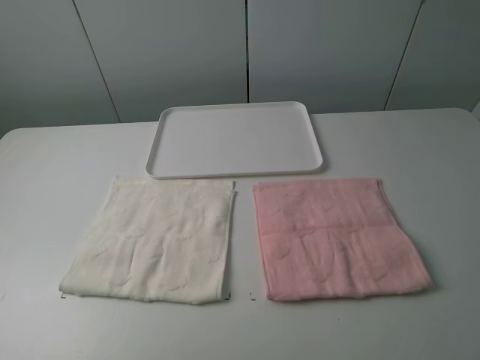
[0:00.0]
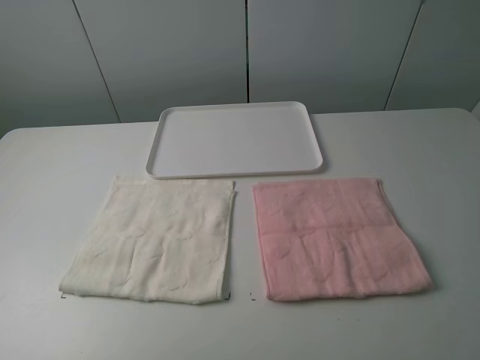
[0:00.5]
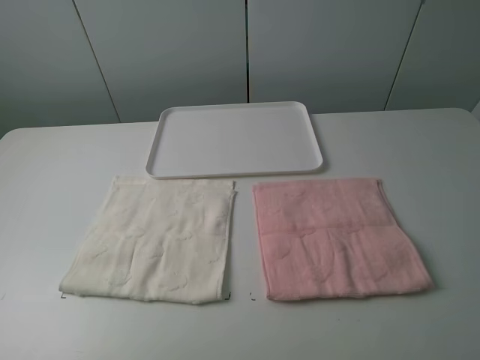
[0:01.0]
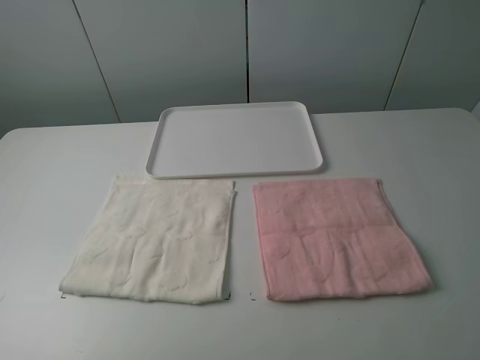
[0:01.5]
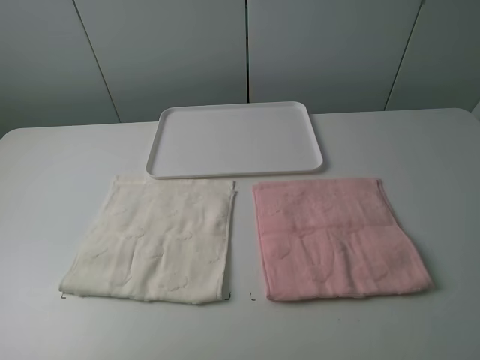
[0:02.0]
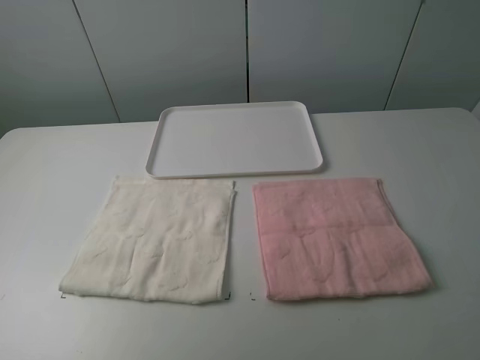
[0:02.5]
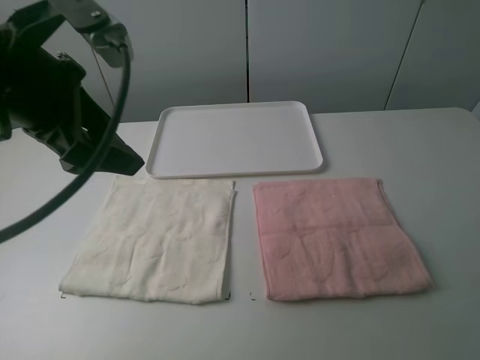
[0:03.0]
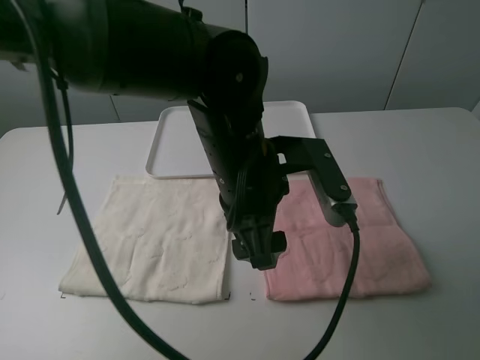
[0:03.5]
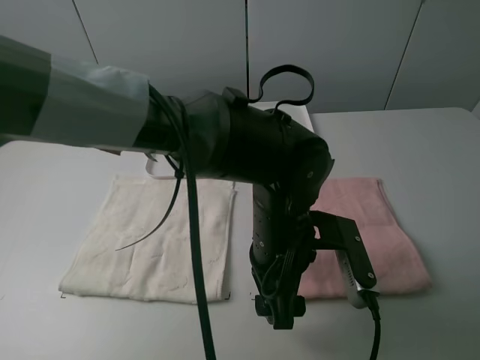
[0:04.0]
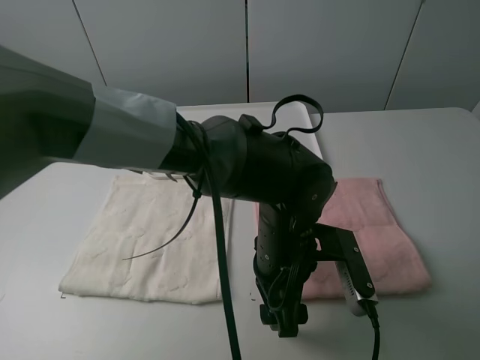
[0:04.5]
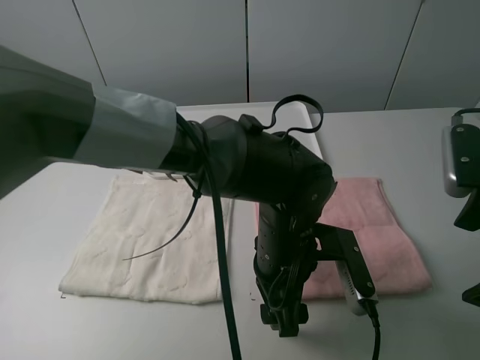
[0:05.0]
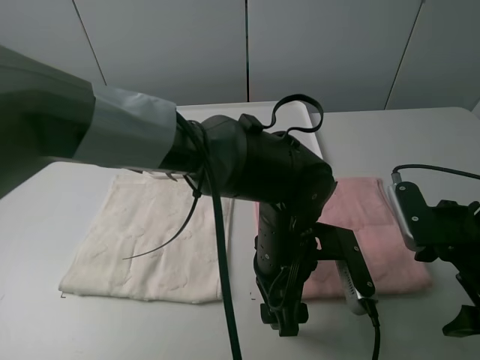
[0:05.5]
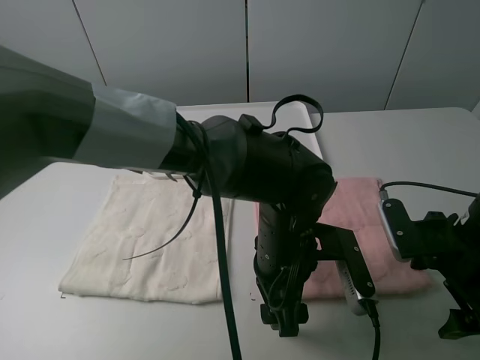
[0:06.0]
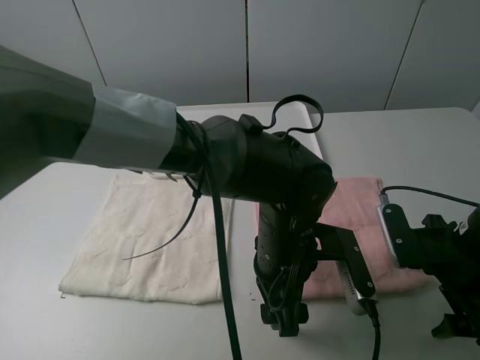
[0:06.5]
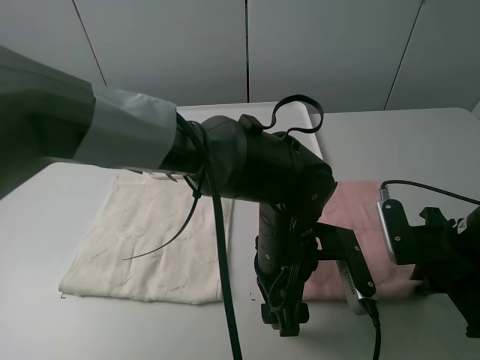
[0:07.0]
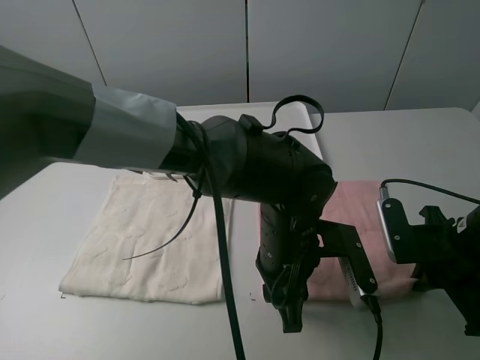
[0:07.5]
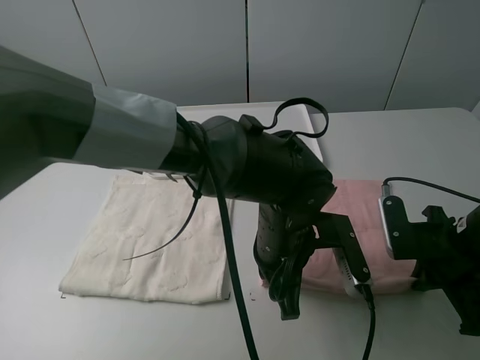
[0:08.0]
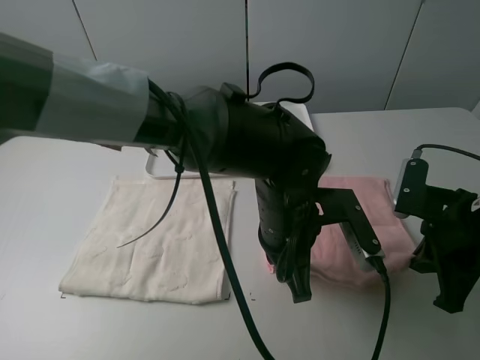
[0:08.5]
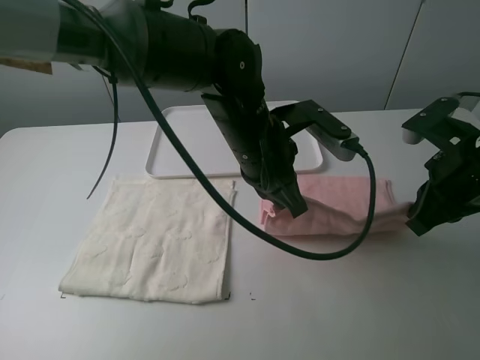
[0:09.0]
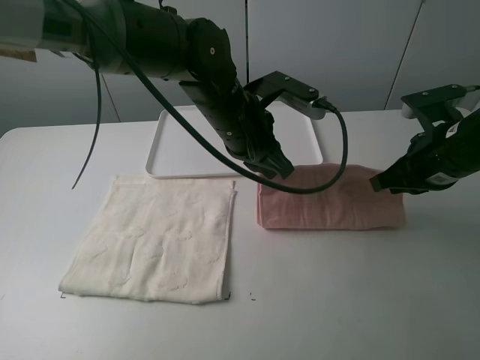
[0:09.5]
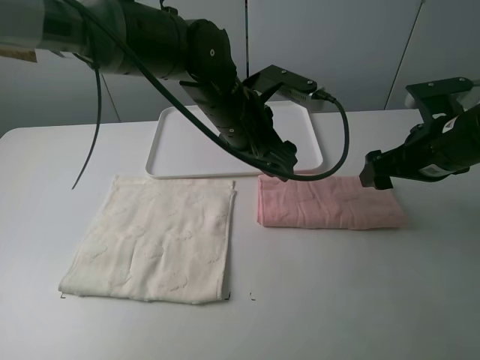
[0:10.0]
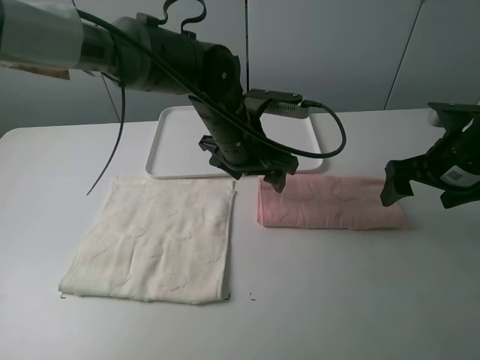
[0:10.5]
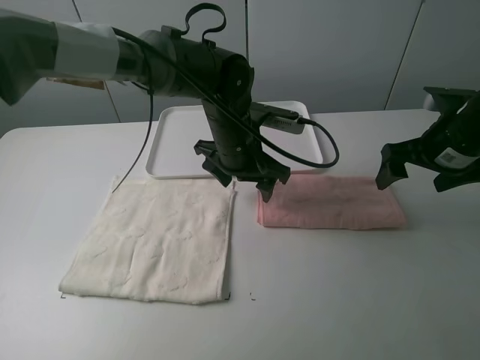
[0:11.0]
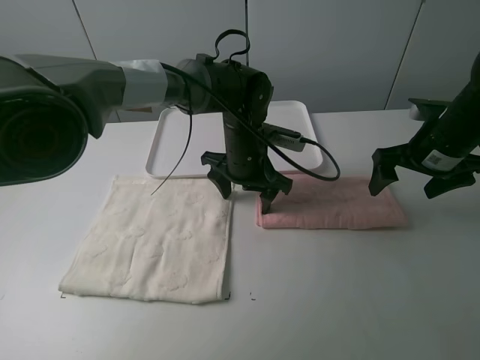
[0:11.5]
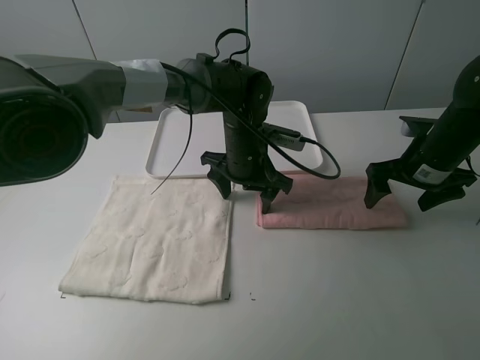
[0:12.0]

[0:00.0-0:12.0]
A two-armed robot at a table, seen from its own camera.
Task of the whole recording: fold one of the towels by two grippers and place it on the tray,then fold another towel by two grippers and place it on the folded towel.
Step, 0:00.0 to 0:07.5: Grasp the pink towel with the left gripper.
Step, 0:08.0 to 0:10.0: Fold the pink towel upwards with the left gripper.
Step, 0:10.5 to 0:11.5: Press the pink towel with the left gripper.
0:00.0 to 0:02.0: The two grippers keep their place.
0:02.0 to 0:04.0: The left gripper travels to the right, forward and downward by roughly 40 cm, while the right gripper goes about 10 cm forward.
0:04.0 to 0:06.0: The right gripper shifts roughly 20 cm downward and forward.
0:06.0 to 0:08.0: The left gripper closes up. Meanwhile the right gripper closes up.
0:08.0 to 0:10.0: The right gripper shifts some 10 cm forward and upward, and opens its fingers, while the left gripper shifts about 15 cm forward, upward and to the left, and opens its fingers.
0:10.0 to 0:12.0: The left gripper shifts about 10 cm downward, while the right gripper goes about 5 cm forward.

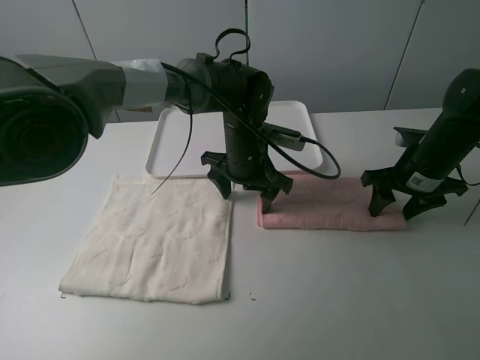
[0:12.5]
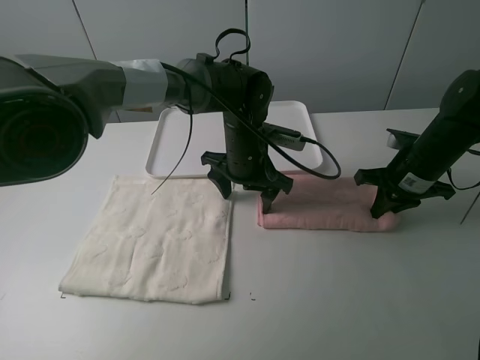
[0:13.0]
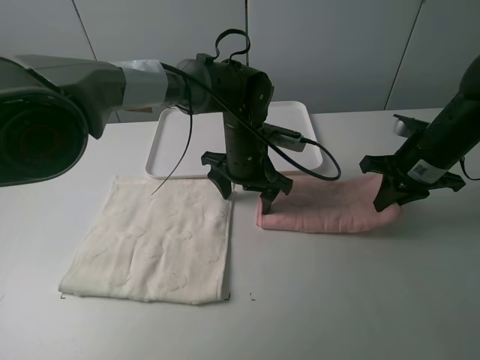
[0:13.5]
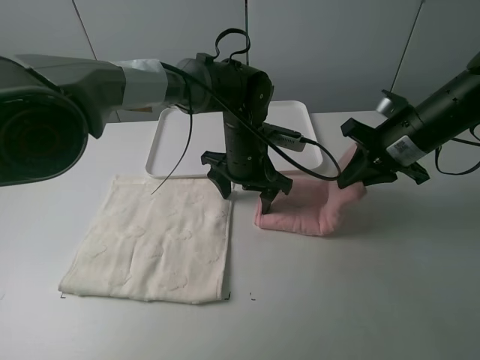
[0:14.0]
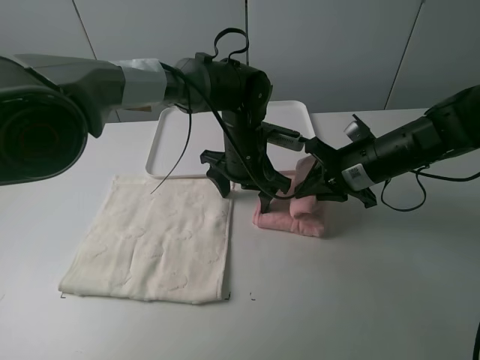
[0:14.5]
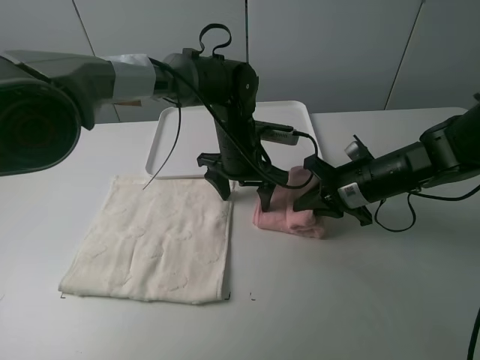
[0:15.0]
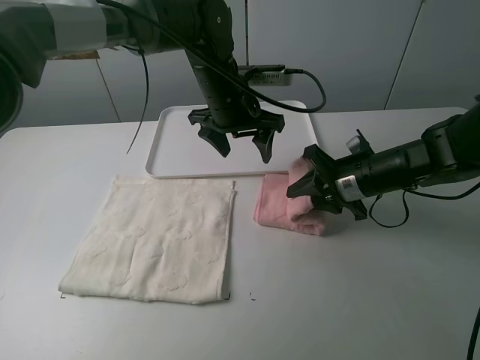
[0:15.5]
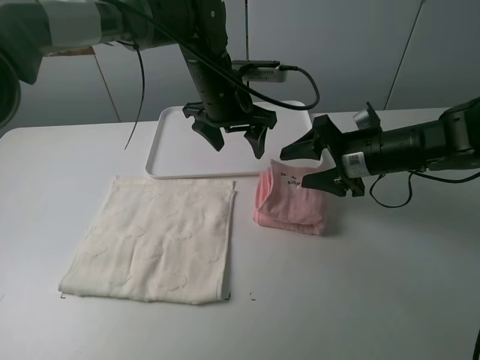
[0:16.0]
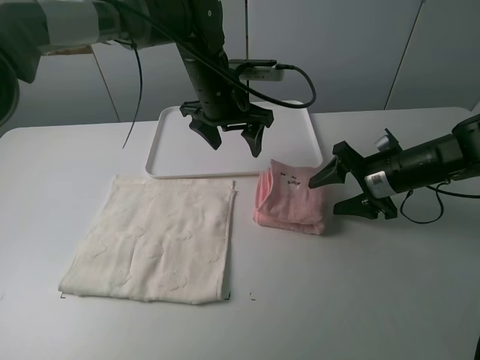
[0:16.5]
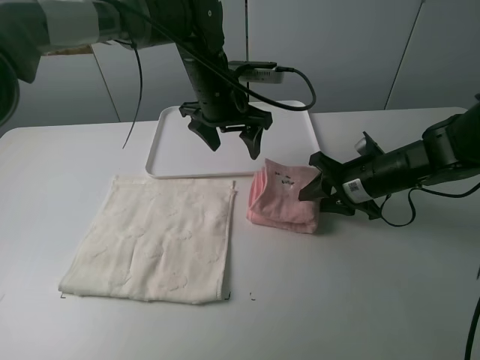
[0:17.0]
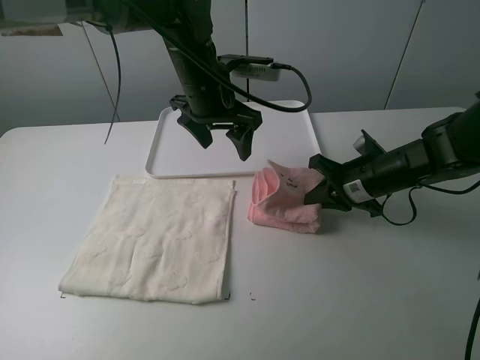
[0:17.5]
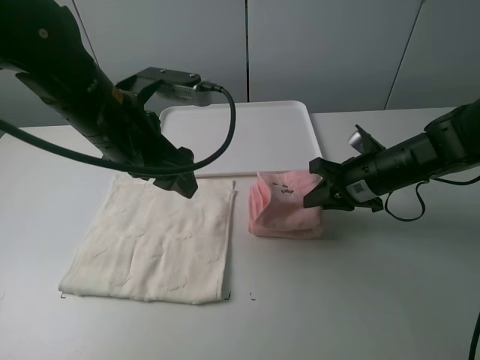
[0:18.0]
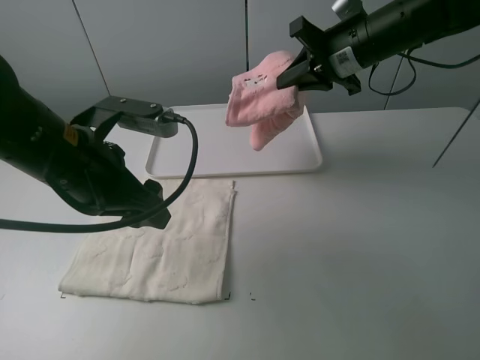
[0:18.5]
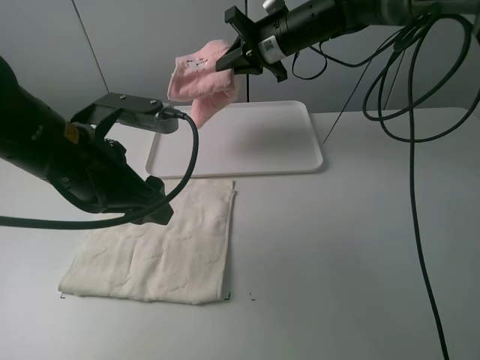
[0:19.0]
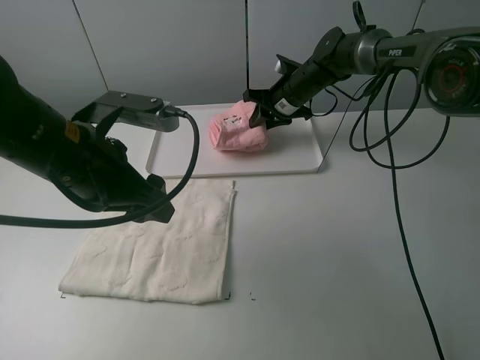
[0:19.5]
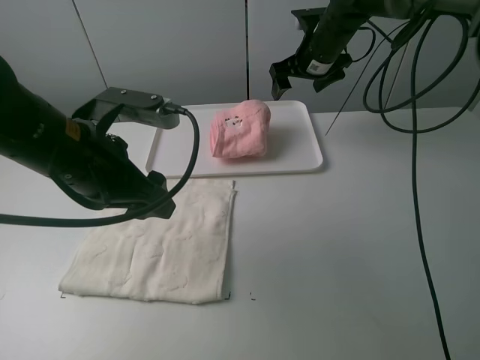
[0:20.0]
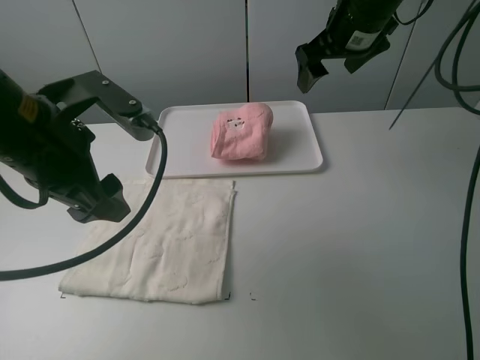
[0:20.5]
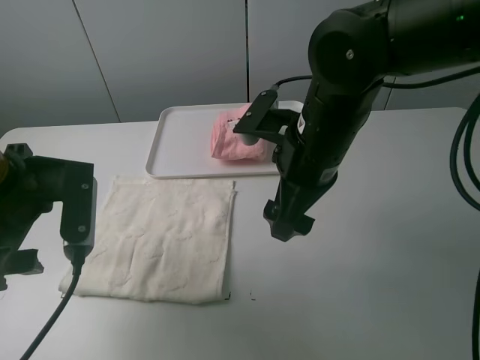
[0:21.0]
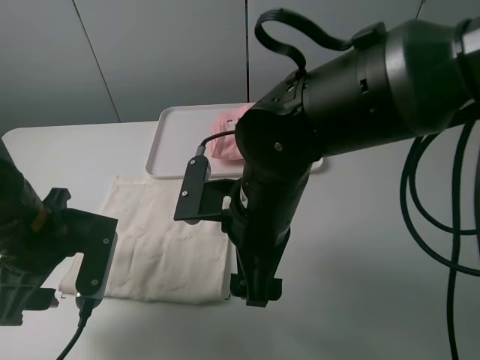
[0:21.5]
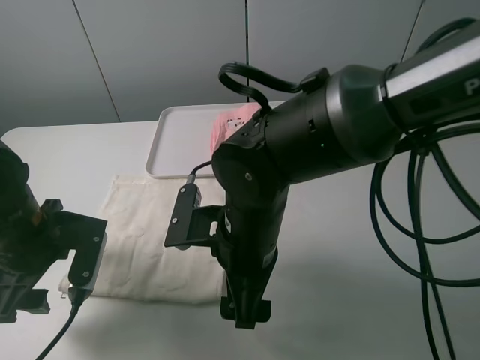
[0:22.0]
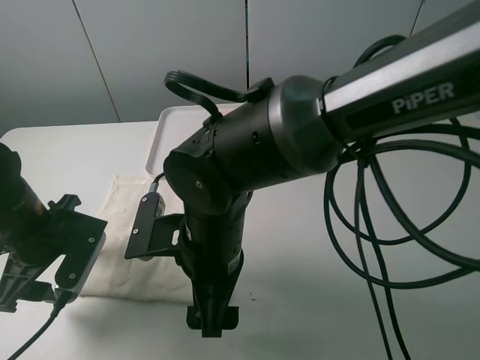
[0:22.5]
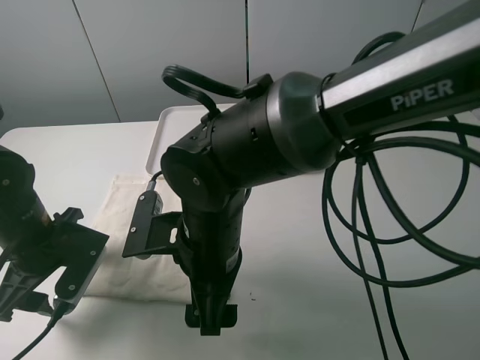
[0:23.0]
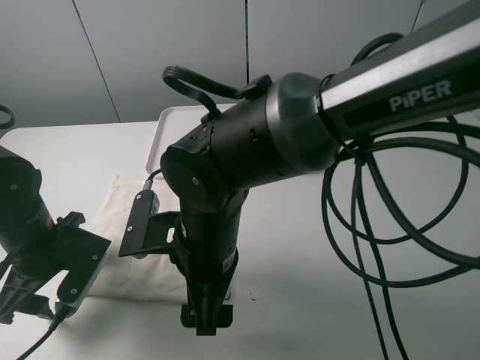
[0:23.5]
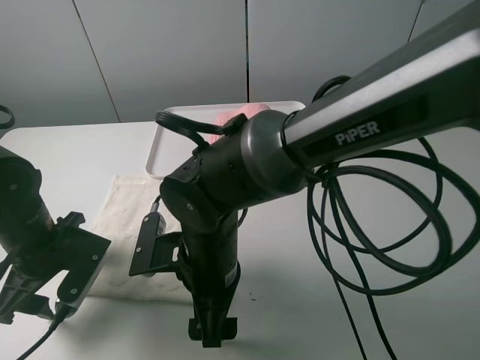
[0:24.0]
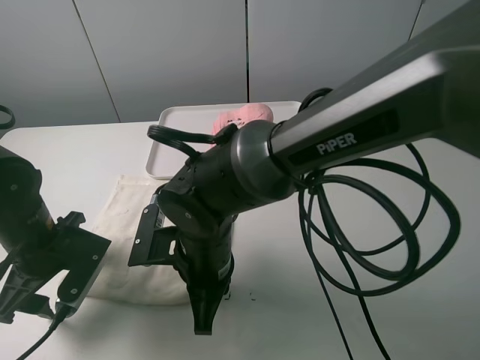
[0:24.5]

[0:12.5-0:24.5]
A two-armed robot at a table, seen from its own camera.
Task of the whole recording: fold one of the towels by two grippers and place it on the tray,then fold another towel by two grippers and place it on the folded towel.
Step, 0:13.5 to 0:15.5: Fold the pink towel from right to left with right gripper.
Step, 0:16.0 to 0:17.0: Grasp the pink towel with the right gripper.
Step, 0:17.5 to 0:20.0: Move the pink towel to the plate with the right gripper.
0:12.5 to 0:14.5: The right gripper moves to the left, approximately 10 cm, and closes.
0:14.5 to 0:16.5: The right gripper moves some 5 cm, and opens its fingers, while the left gripper shifts approximately 10 cm upward.
0:16.5 to 0:18.5: The right gripper shifts about 20 cm upward, forward and to the left, and closes, while the left gripper moves backward and to the left, approximately 25 cm.
0:18.5 to 0:20.5: The right gripper reaches some 15 cm downward, then returns, and opens.
0:20.5 to 0:22.5: The right gripper goes about 30 cm backward, to the left and downward. The left gripper moves downward and to the left, roughly 15 cm.
0:22.5 to 0:24.5: The right gripper closes its fingers.

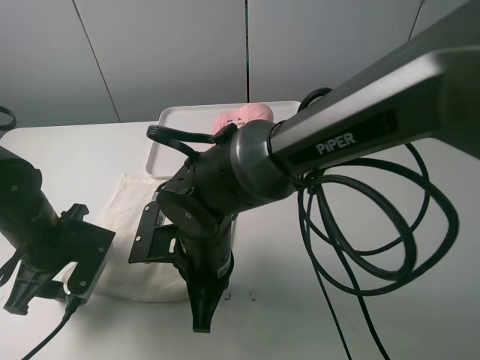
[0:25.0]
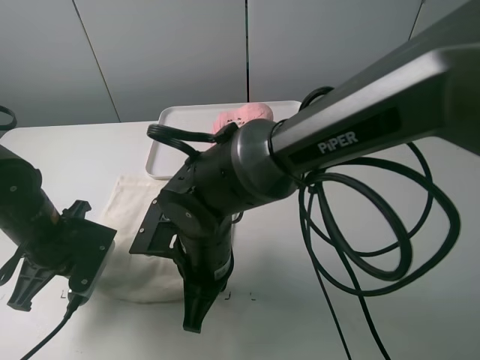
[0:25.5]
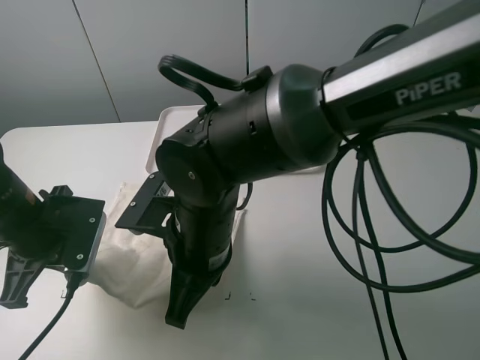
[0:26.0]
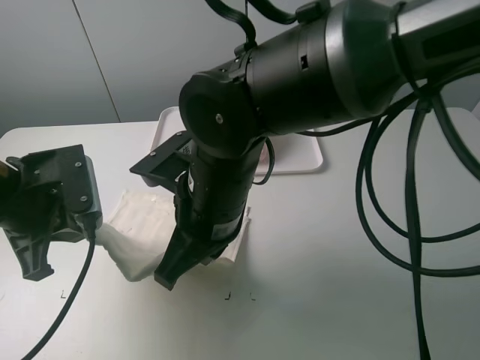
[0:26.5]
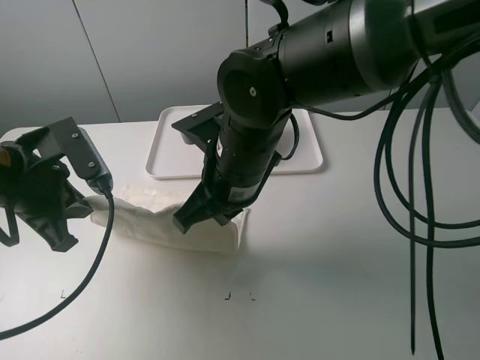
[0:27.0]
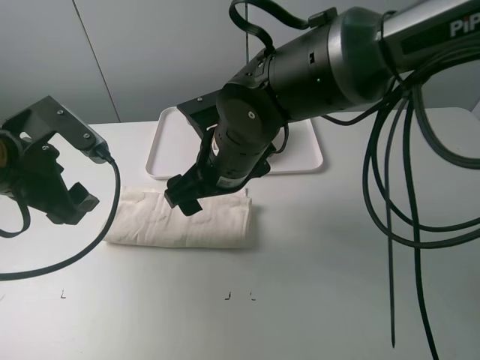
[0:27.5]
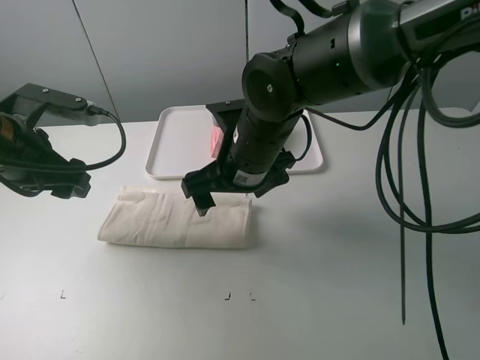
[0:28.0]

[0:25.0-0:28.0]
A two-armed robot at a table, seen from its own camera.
Task of the whole recording: fold one of the towels by two grippers and place it on the tray,then fold another towel by two grippers and place it on the folded towel.
Step, 0:25.5 to 0:27.5: Fold the white towel upwards with the left gripper.
0:25.0 to 0:26.5: Both grippers travel together upward, about 10 cm. The left gripper closes its fingers.
0:26.5 to 0:28.0: Both grippers move forward, about 5 cm. The right gripper opens up; the left gripper opens its fingers.
